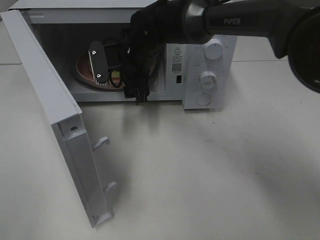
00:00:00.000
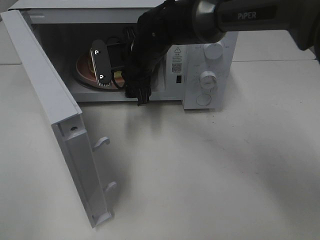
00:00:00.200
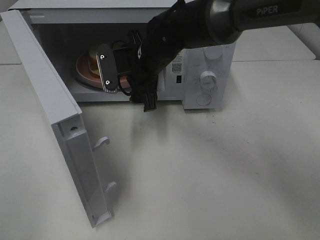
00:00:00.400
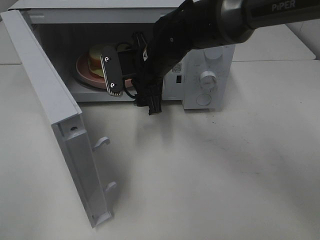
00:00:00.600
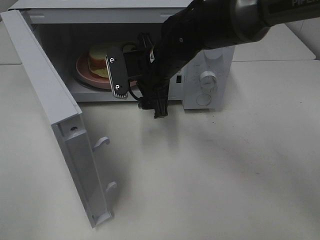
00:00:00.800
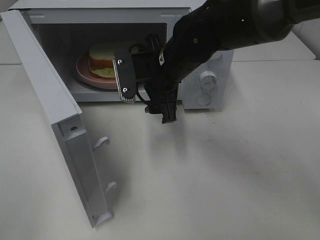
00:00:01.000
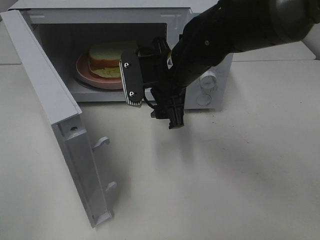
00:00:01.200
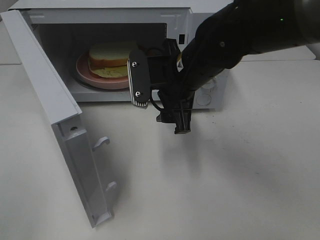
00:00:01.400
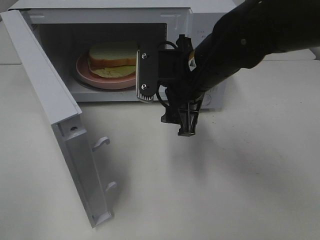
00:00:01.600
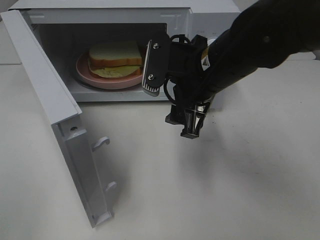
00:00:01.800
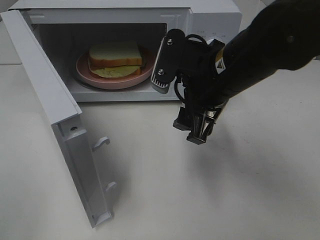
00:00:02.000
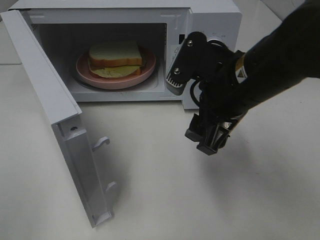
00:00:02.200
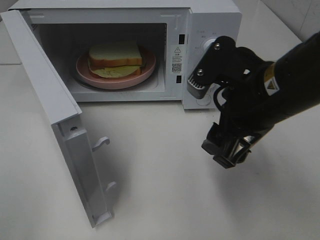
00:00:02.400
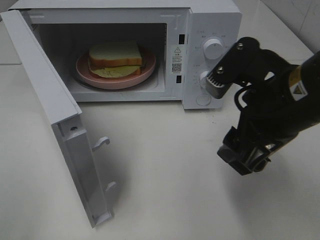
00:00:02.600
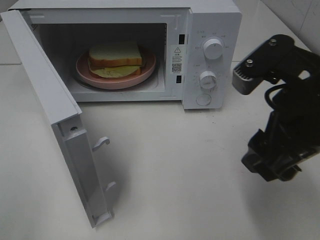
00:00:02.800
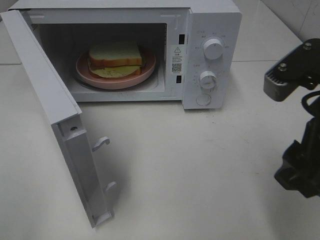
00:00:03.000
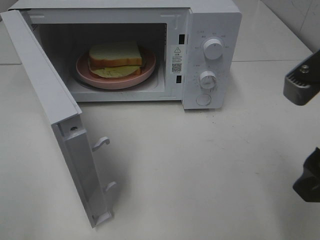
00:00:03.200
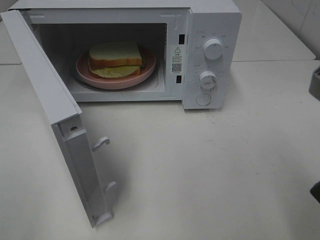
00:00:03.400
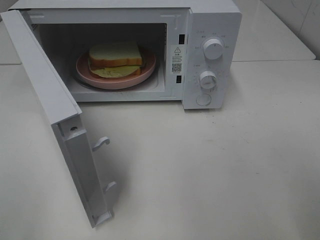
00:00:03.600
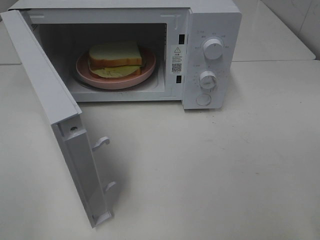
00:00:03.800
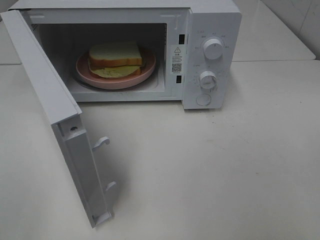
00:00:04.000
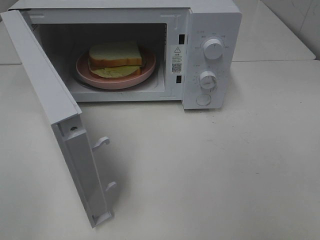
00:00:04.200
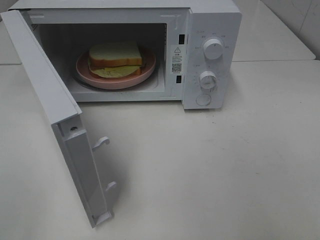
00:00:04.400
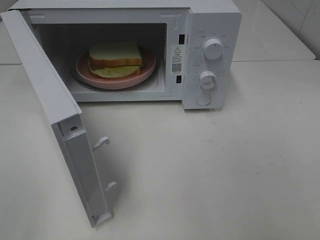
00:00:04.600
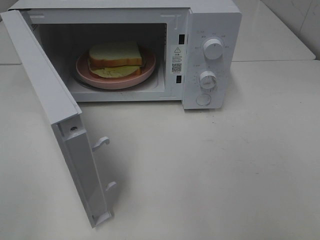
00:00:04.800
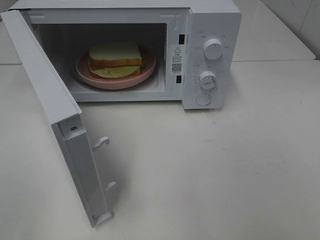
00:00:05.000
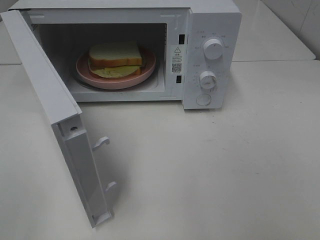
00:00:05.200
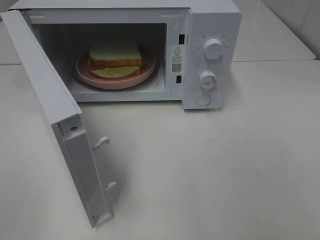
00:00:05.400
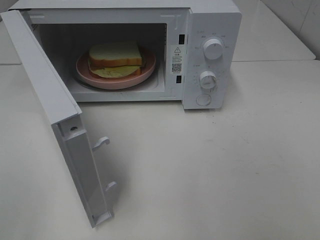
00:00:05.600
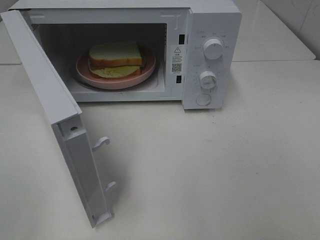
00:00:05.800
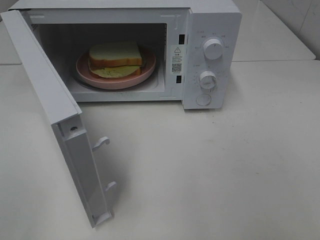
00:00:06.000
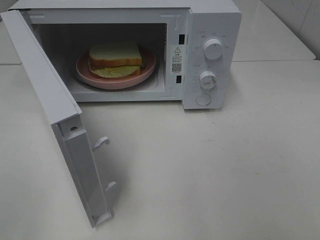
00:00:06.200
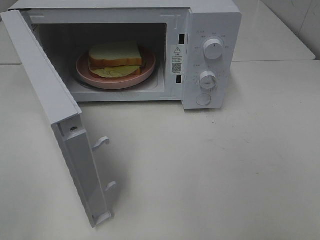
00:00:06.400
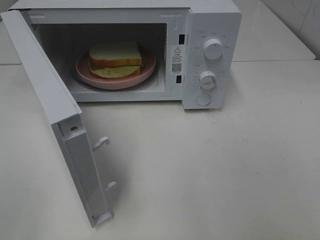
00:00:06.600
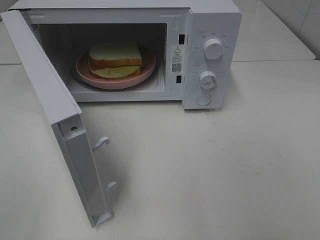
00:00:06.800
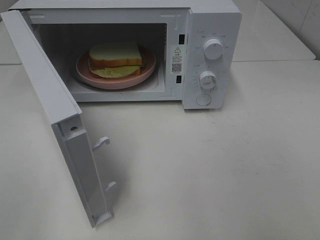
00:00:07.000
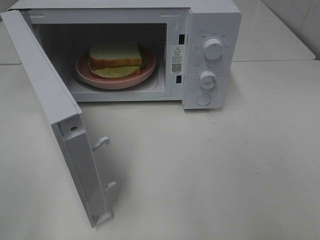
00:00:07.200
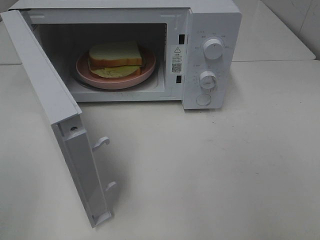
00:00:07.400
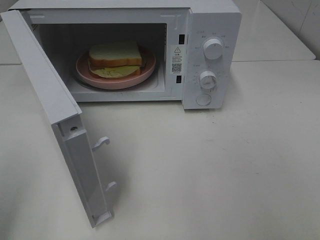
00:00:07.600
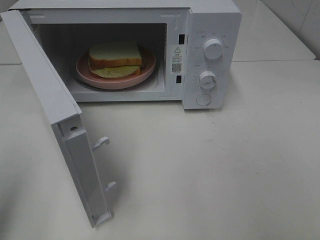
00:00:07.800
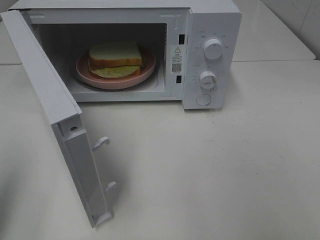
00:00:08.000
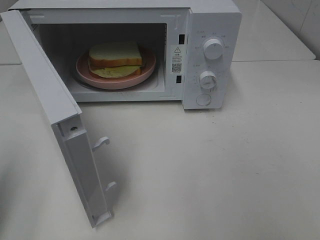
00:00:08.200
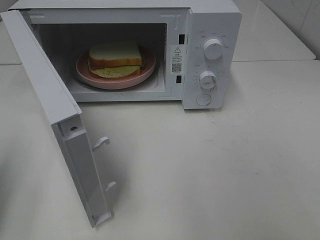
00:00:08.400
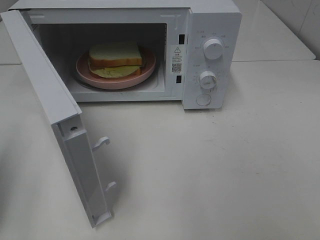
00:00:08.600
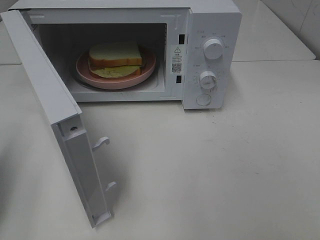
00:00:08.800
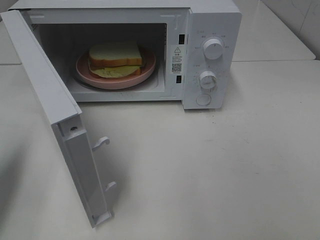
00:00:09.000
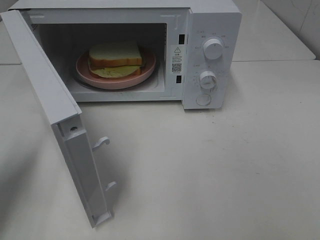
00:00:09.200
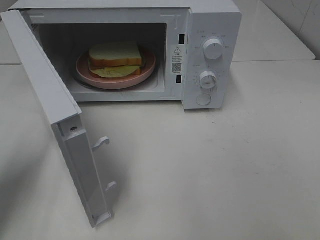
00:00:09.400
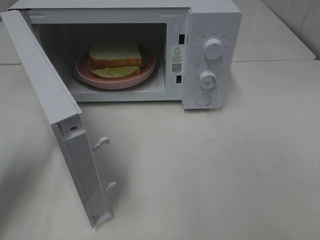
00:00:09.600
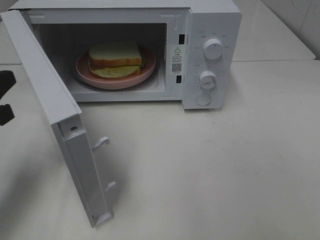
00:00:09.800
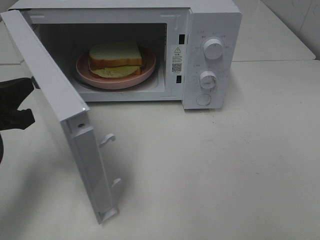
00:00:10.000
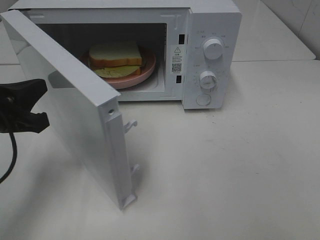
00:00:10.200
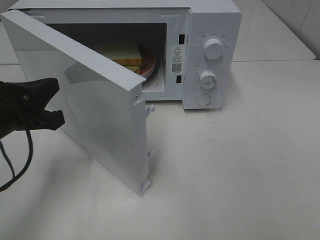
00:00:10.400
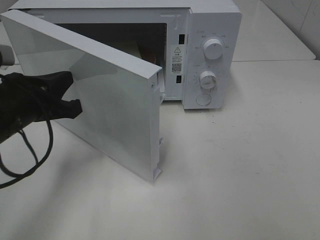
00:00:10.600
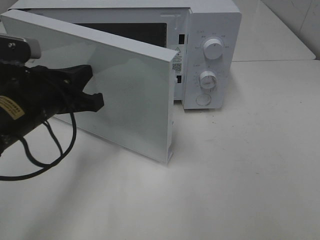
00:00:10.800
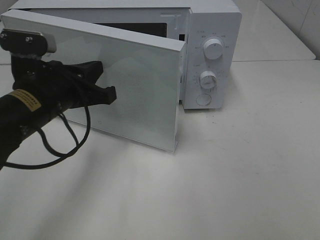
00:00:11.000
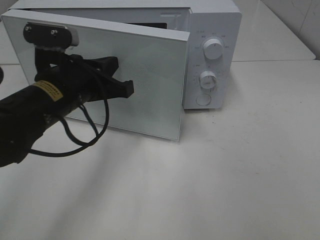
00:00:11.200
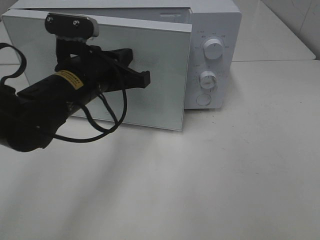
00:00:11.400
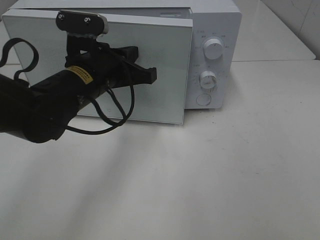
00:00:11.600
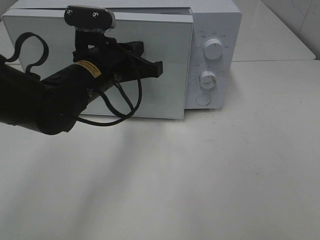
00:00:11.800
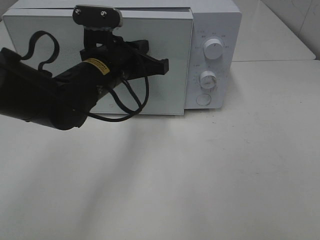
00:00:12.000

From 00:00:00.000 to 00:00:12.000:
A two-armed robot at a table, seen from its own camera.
Task of the whole recording: Heat Sandwich.
From 00:00:00.000 to 00:00:01.600: The right gripper shifts some 15 cm backward and to the right.
From 00:00:01.600 to 00:00:03.000: The right gripper travels backward, to the right and upward by roughly 20 cm.
From 00:00:03.000 to 00:00:04.400: The right gripper heads backward and to the right, covering roughly 15 cm.
From 00:00:07.600 to 00:00:09.000: The left gripper moves forward and downward, about 15 cm.
From 00:00:09.000 to 00:00:10.400: The left gripper goes about 10 cm to the right and downward.
From 00:00:10.400 to 00:00:12.000: The left gripper goes about 20 cm to the right and forward.

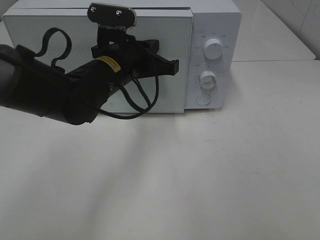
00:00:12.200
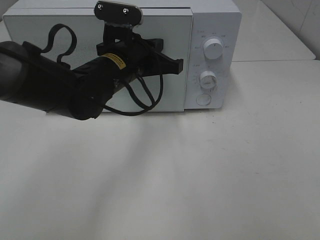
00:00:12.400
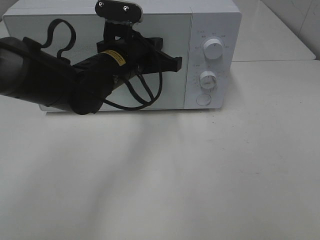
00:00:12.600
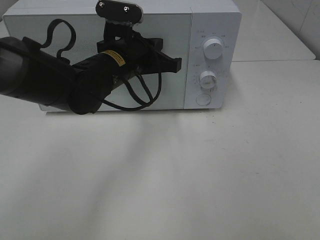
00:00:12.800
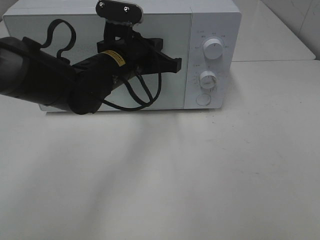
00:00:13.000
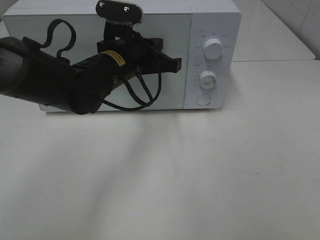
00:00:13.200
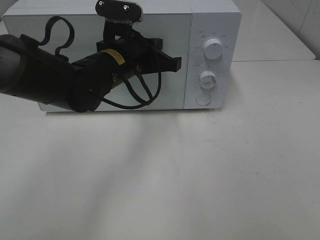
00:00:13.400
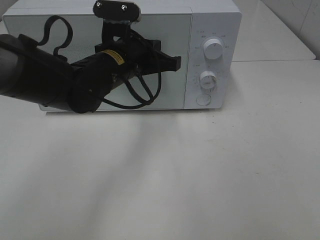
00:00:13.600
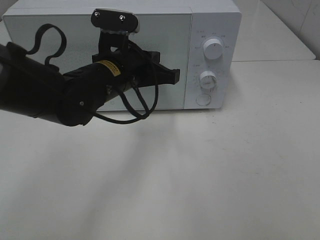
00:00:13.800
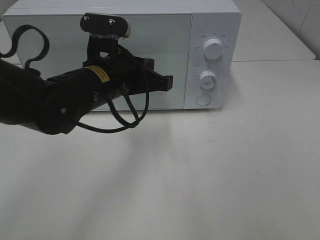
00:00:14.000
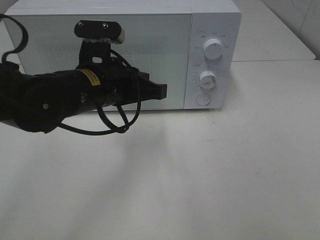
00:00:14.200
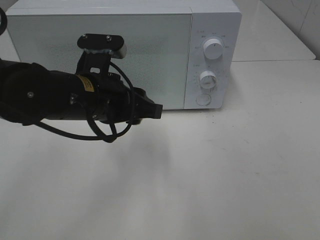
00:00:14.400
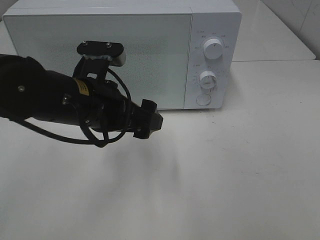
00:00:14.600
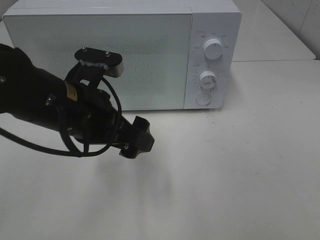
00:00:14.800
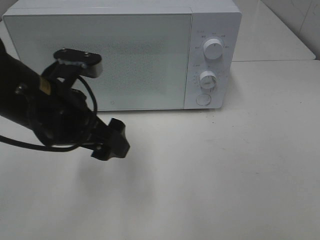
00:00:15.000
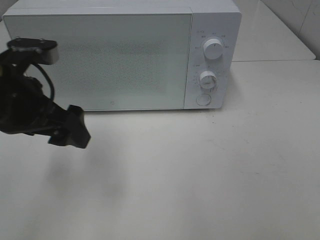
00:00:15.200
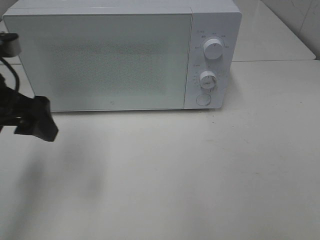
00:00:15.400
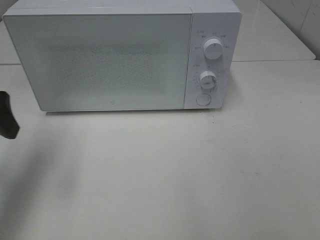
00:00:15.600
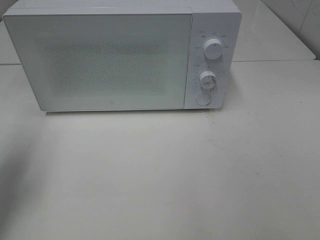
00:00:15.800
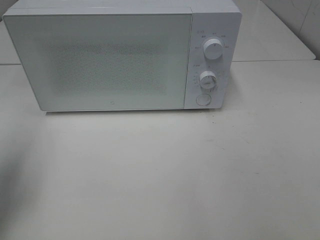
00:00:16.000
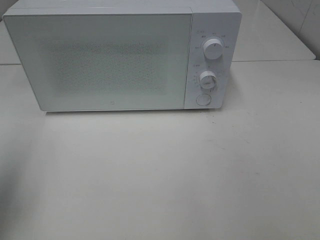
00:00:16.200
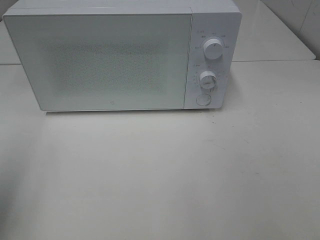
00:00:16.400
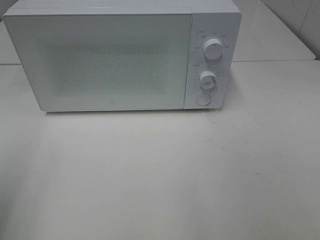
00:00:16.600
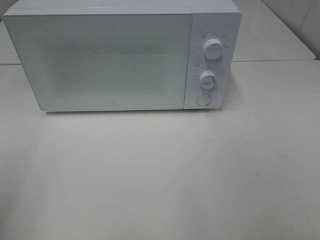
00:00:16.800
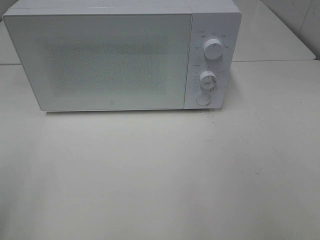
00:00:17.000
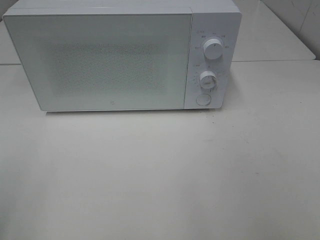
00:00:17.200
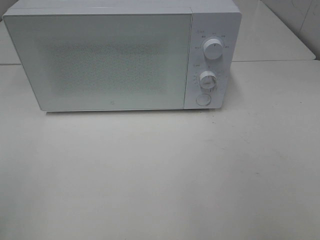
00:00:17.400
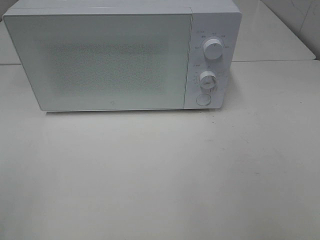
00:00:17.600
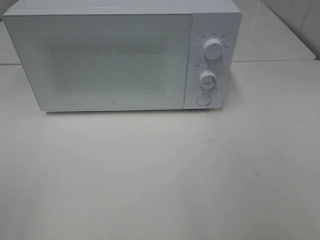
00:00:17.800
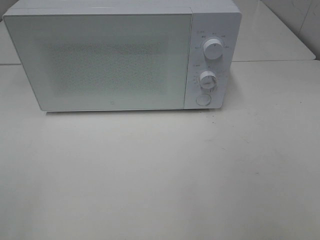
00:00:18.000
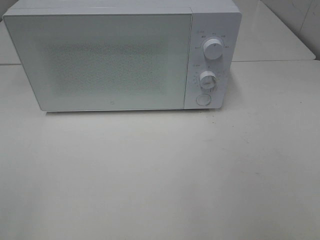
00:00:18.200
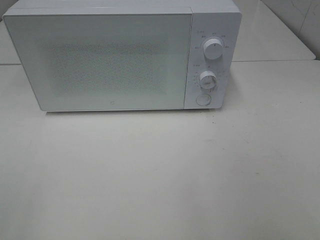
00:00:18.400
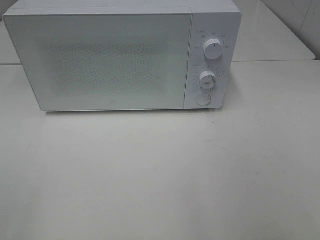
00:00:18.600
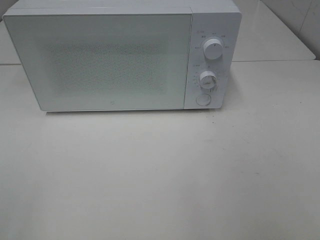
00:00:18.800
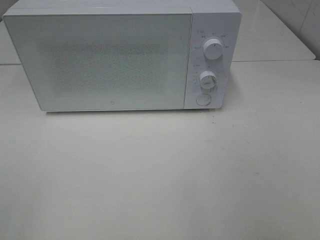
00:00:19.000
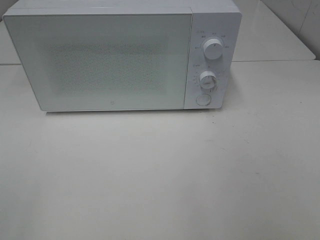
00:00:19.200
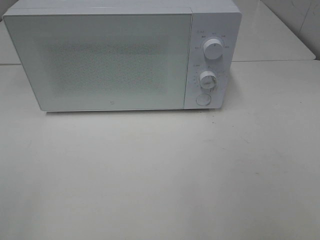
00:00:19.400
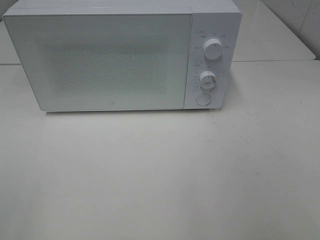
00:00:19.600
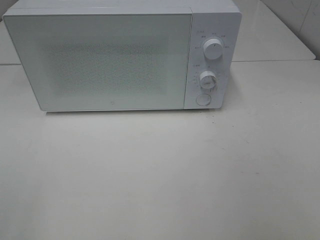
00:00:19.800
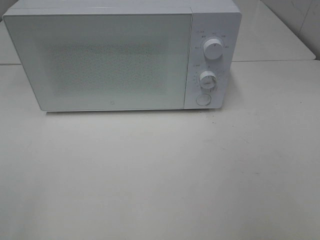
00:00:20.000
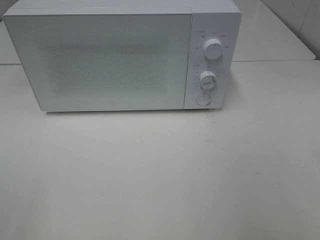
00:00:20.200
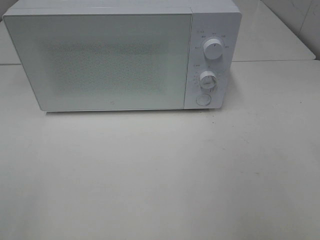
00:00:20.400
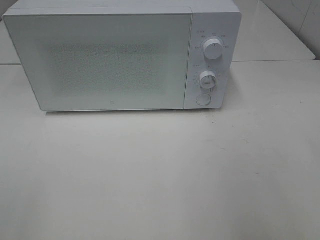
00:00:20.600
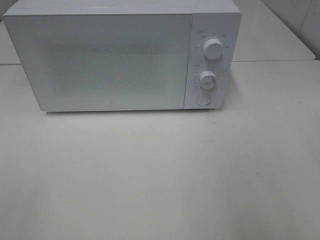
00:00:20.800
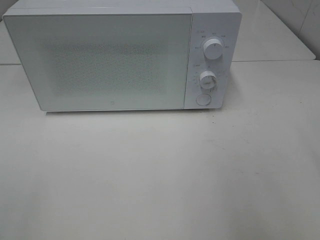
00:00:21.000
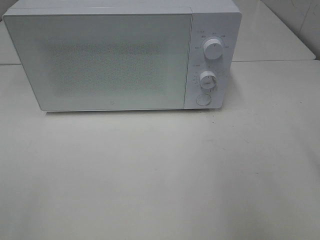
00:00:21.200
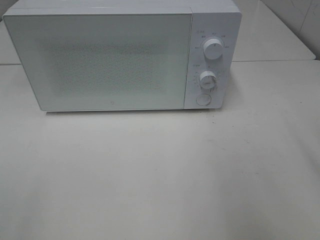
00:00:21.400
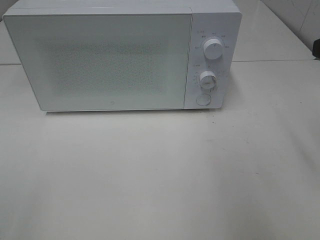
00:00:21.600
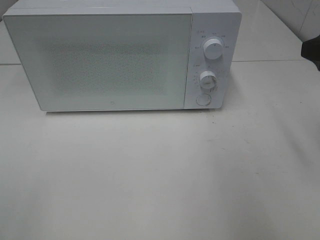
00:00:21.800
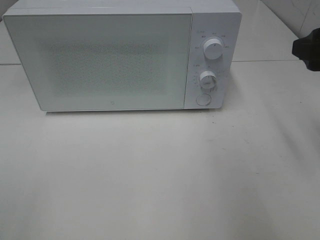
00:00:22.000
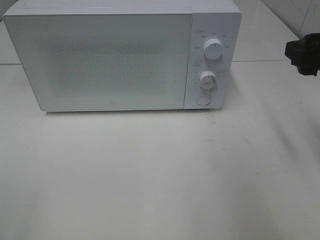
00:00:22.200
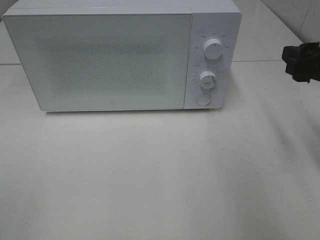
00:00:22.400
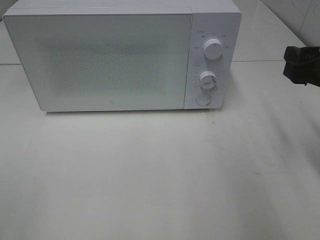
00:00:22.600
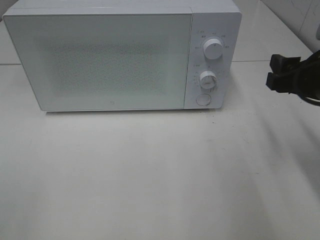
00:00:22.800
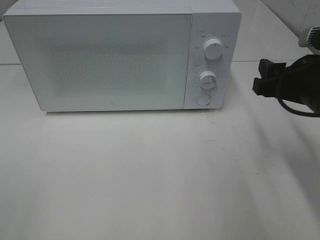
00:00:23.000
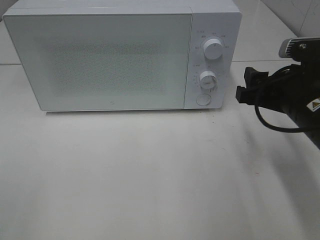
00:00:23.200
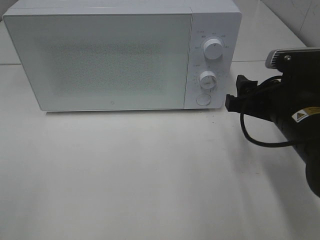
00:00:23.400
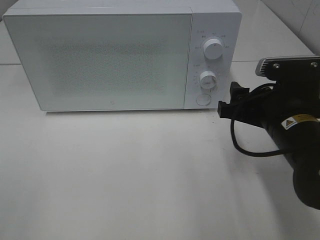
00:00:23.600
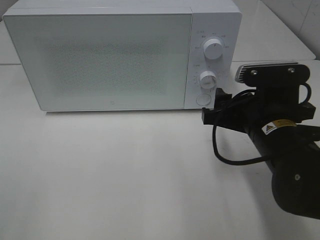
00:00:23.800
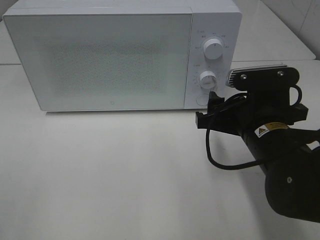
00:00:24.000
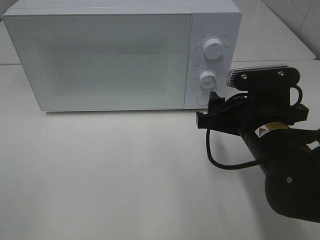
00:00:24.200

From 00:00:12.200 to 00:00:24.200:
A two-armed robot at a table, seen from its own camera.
Task of the whole recording: Heat Sandwich.
From 00:00:12.200 to 00:00:13.800: The grippers stay close to where they were, moving slightly.
From 00:00:13.800 to 00:00:15.200: The left gripper moves to the left, backward and upward, approximately 15 cm, and opens its fingers.
From 00:00:15.200 to 00:00:16.600: The left gripper moves to the left, backward and upward, some 20 cm.
From 00:00:21.200 to 00:00:22.600: The right gripper shifts some 10 cm downward and forward.
From 00:00:22.600 to 00:00:24.200: The right gripper is displaced to the left and downward by some 15 cm.
